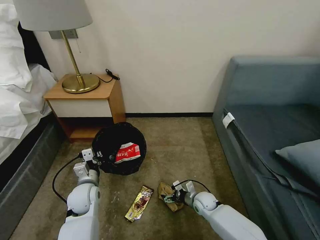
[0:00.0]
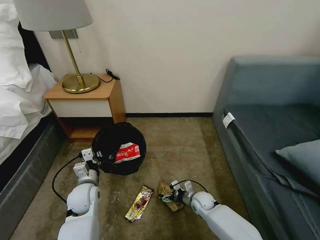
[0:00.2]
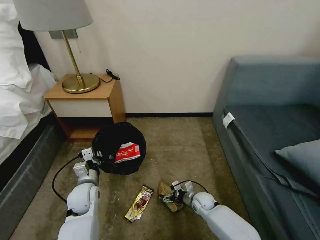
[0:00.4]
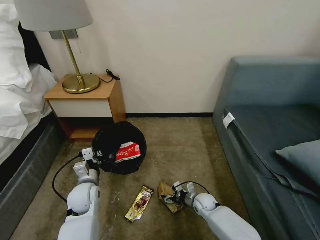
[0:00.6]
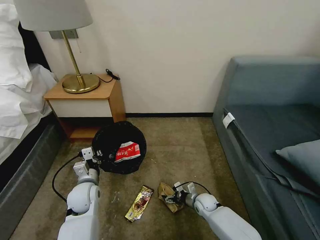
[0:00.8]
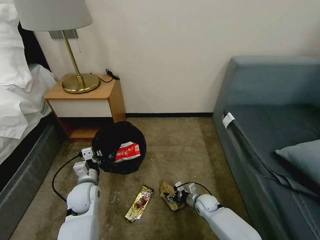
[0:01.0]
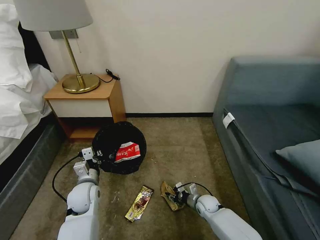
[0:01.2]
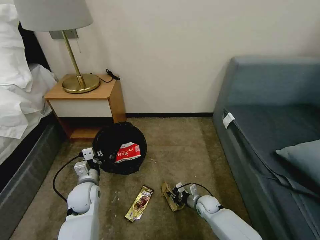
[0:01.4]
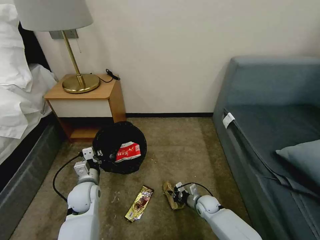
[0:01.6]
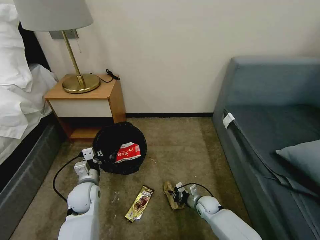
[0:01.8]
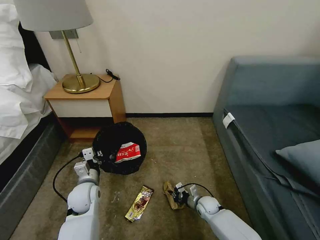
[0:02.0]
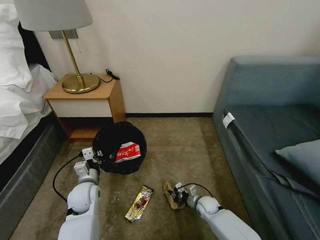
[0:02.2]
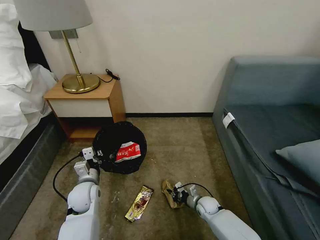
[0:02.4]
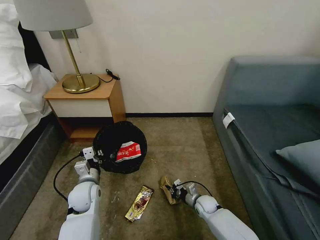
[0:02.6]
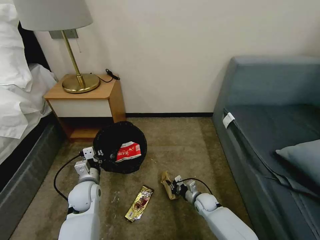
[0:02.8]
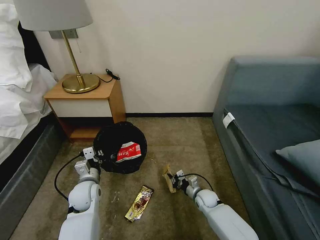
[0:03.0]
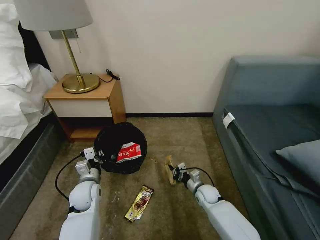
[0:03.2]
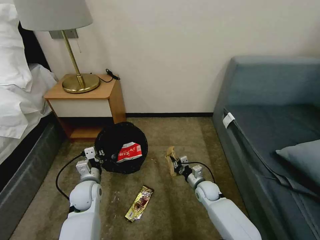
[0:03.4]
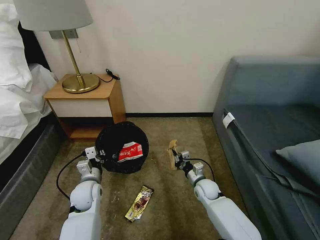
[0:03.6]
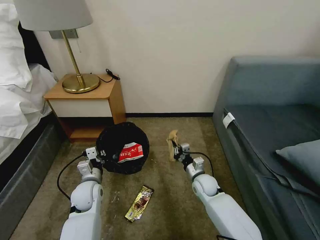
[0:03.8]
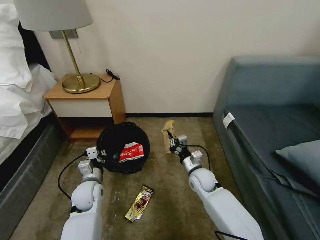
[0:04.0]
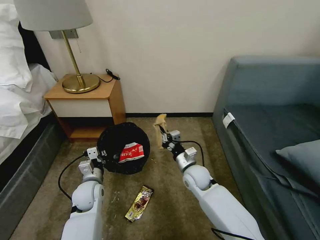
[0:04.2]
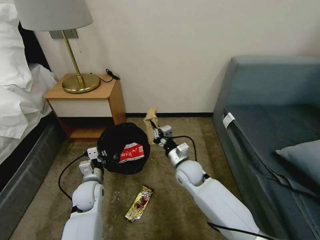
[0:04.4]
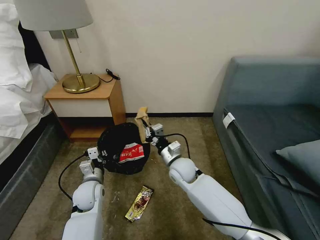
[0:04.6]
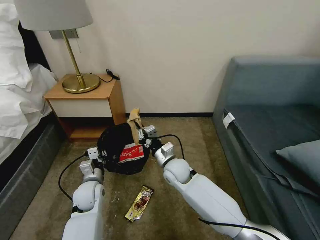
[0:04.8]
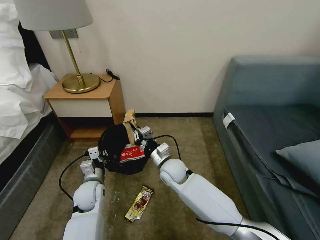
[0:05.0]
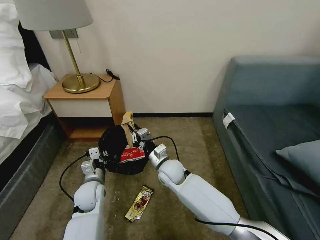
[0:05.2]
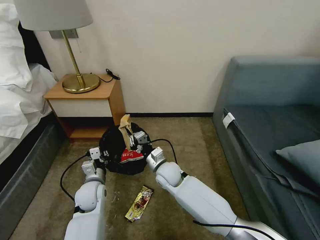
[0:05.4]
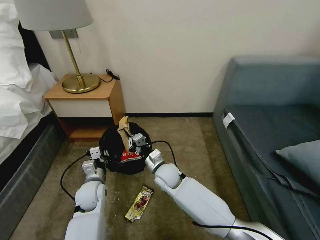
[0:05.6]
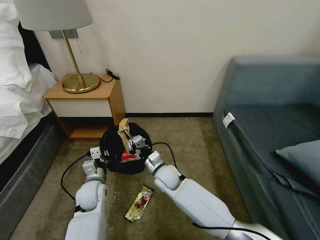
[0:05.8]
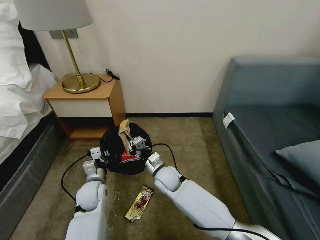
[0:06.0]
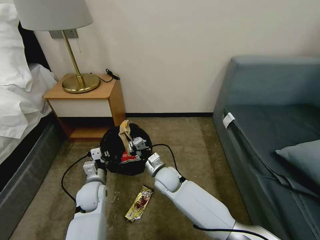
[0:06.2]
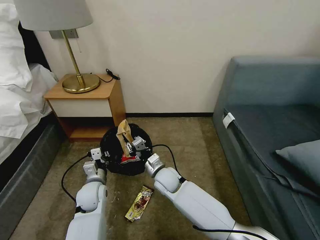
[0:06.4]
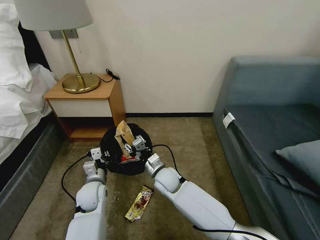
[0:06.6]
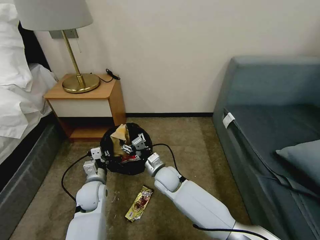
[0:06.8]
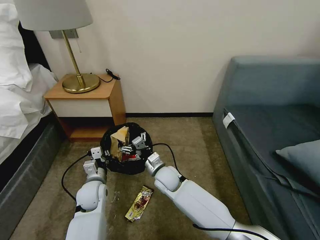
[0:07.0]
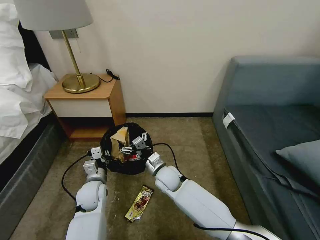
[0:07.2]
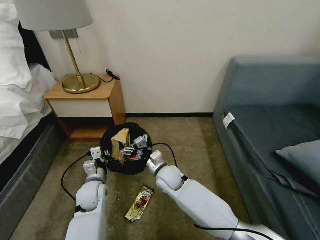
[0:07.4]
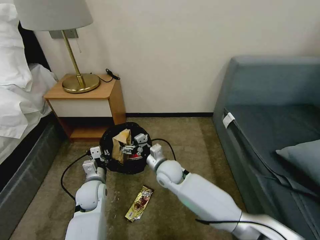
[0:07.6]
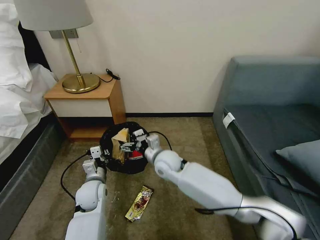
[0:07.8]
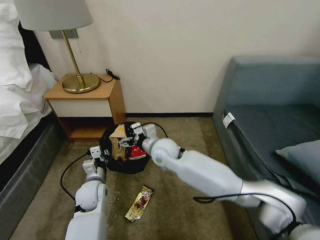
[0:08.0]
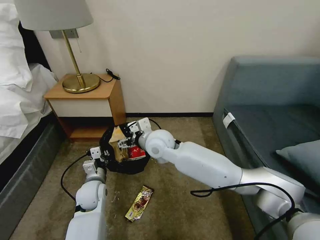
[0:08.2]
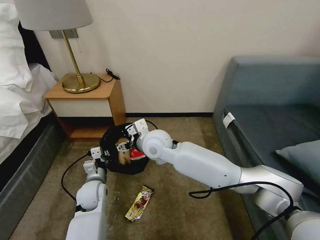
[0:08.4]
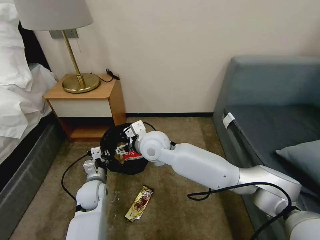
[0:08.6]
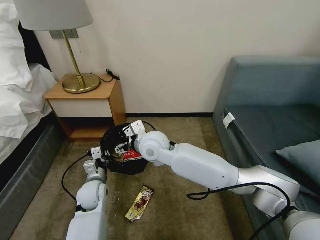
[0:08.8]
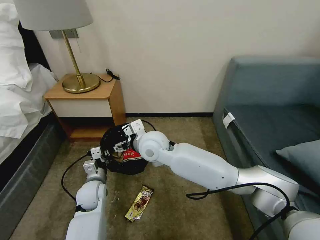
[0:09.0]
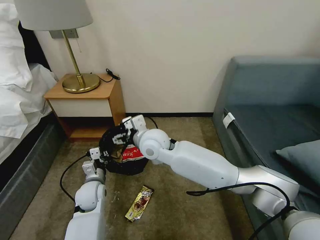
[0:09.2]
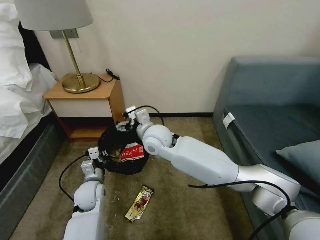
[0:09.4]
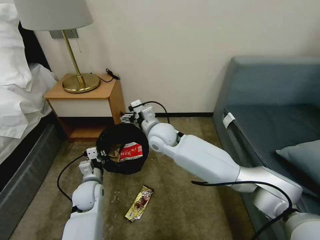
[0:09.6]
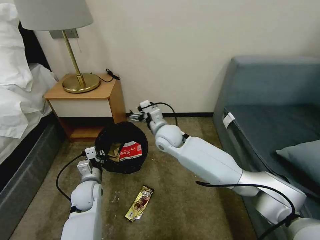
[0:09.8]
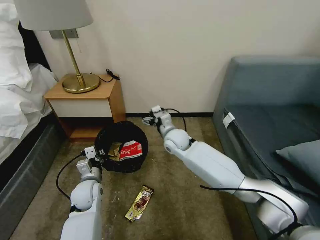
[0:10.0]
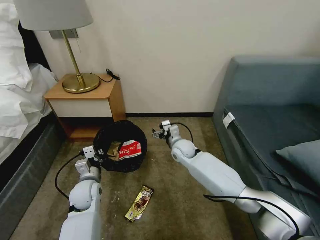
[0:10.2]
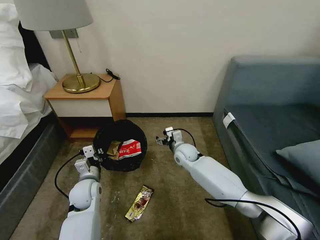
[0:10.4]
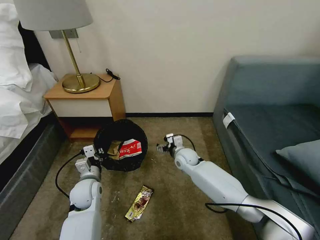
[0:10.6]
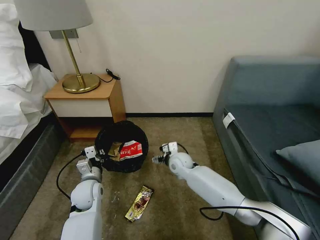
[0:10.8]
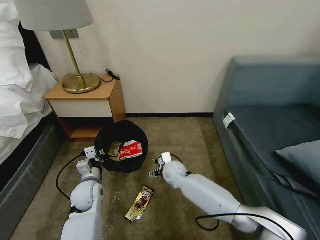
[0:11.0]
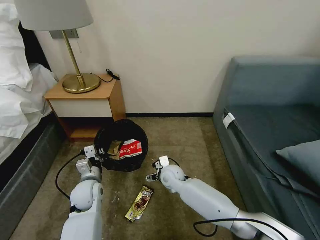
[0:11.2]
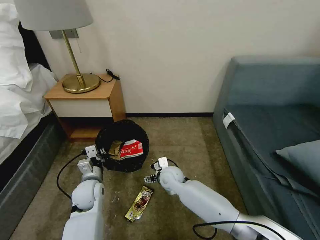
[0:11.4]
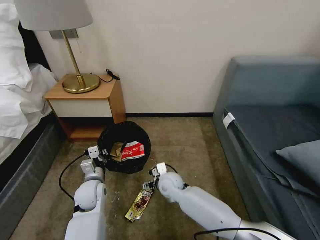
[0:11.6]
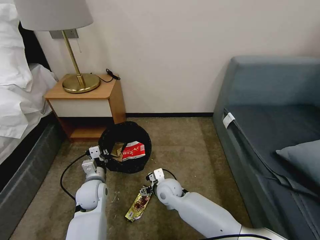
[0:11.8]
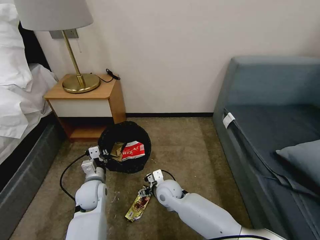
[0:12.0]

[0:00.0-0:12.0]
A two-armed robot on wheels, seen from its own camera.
Task of the whole recording: Pick up the trash bin, then pick up the garbage on the floor and place it into the trash bin.
0:00.0 to 0:01.6: The right gripper closes up.
0:01.6 to 0:03.0: The grippers stay close to where they were, moving slightly.
0:03.0 to 0:04.4: The right gripper moves upward and to the left, some 25 cm.
0:04.4 to 0:06.0: The right gripper goes approximately 10 cm to the left.
0:06.0 to 0:07.6: The right gripper opens.
0:07.6 to 0:09.0: The right gripper moves upward, about 15 cm.
0:09.0 to 0:10.4: The right gripper shifts about 25 cm downward, to the right and forward.
0:10.4 to 0:12.0: The right gripper is displaced backward and to the left by approximately 15 cm.

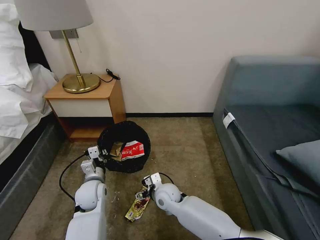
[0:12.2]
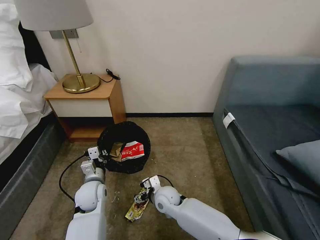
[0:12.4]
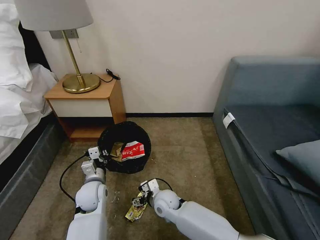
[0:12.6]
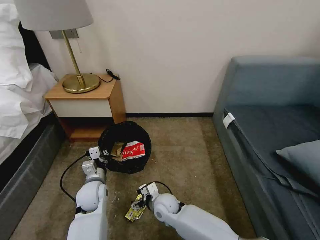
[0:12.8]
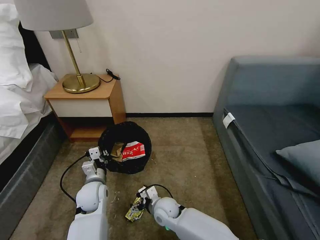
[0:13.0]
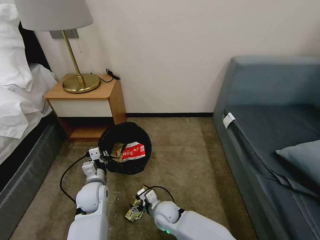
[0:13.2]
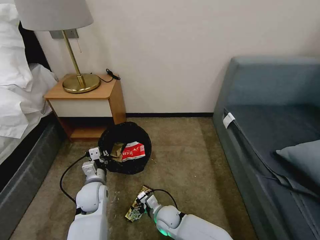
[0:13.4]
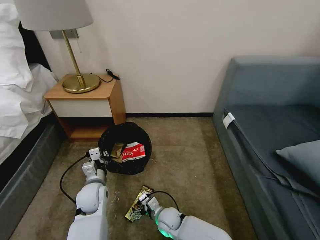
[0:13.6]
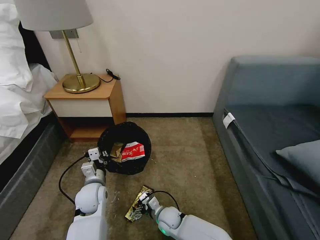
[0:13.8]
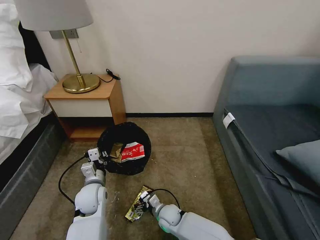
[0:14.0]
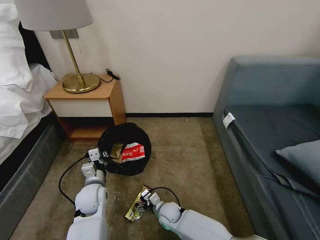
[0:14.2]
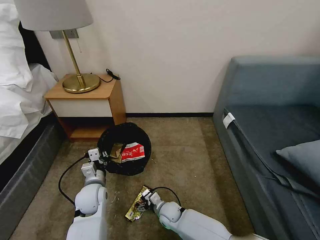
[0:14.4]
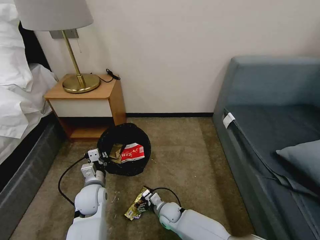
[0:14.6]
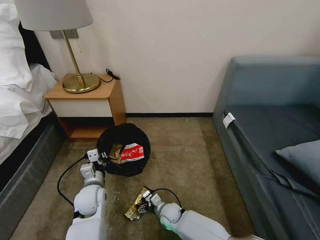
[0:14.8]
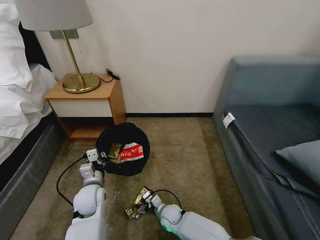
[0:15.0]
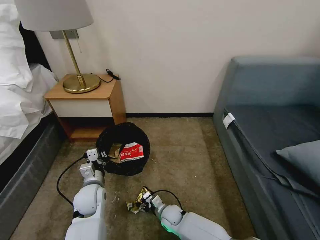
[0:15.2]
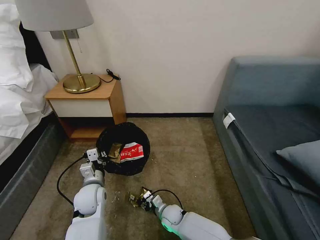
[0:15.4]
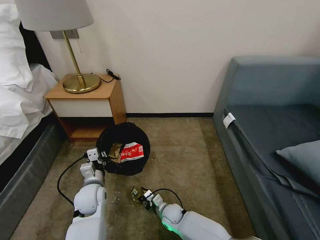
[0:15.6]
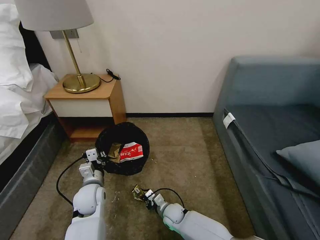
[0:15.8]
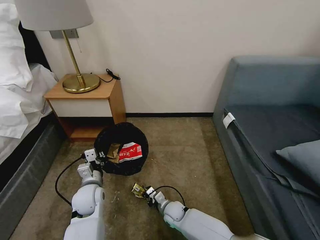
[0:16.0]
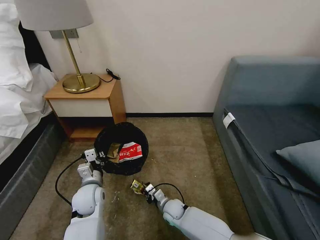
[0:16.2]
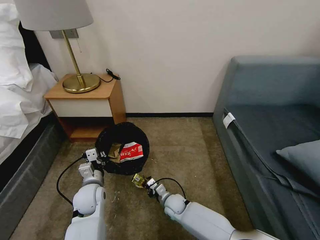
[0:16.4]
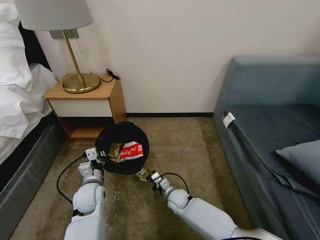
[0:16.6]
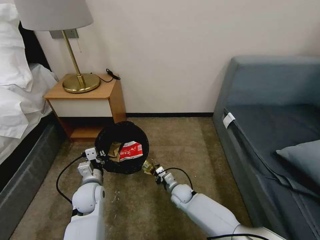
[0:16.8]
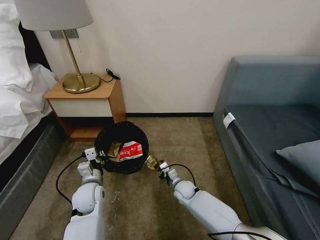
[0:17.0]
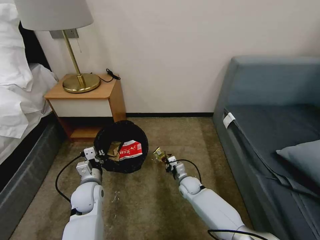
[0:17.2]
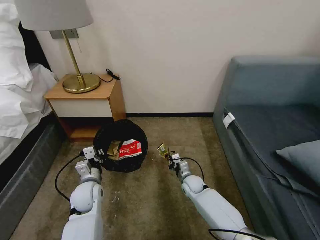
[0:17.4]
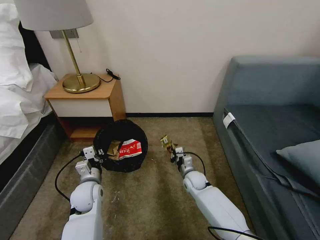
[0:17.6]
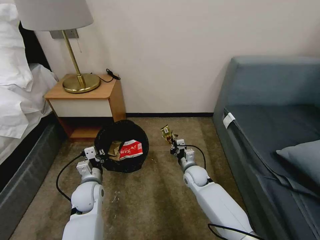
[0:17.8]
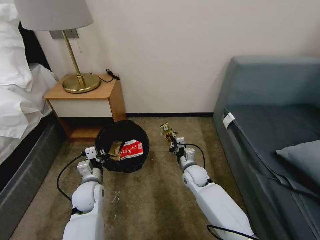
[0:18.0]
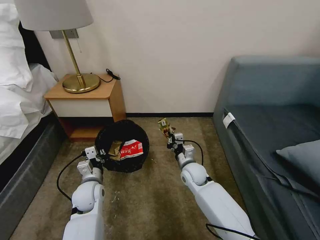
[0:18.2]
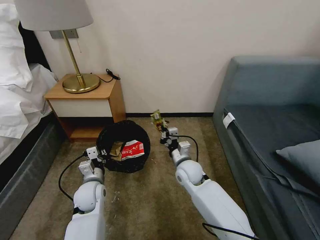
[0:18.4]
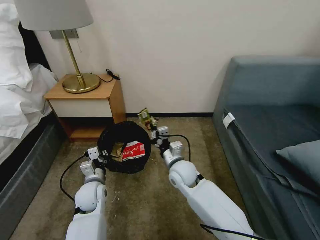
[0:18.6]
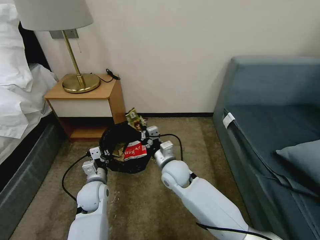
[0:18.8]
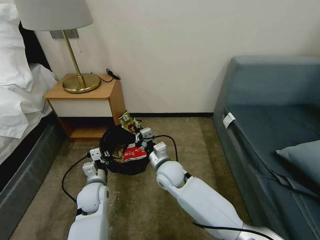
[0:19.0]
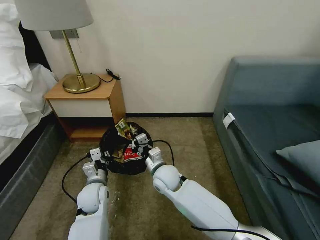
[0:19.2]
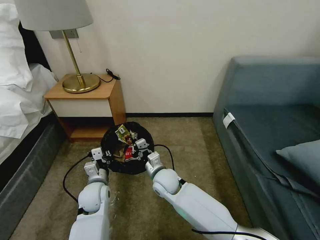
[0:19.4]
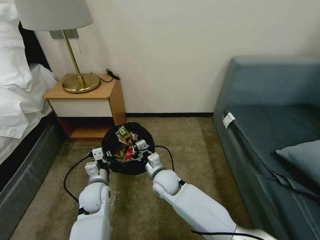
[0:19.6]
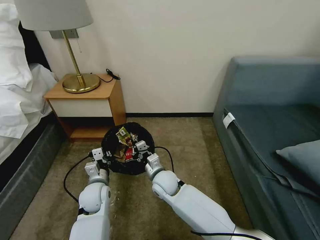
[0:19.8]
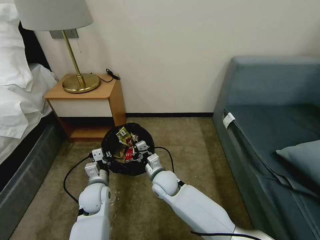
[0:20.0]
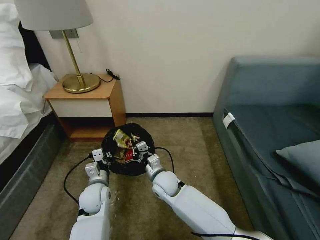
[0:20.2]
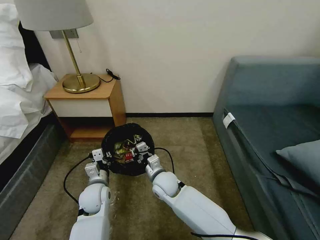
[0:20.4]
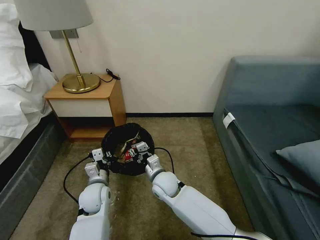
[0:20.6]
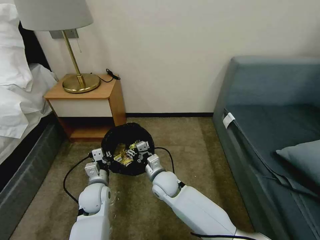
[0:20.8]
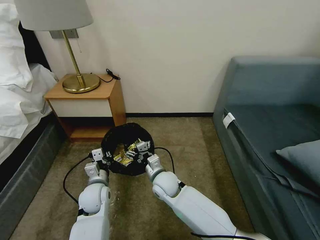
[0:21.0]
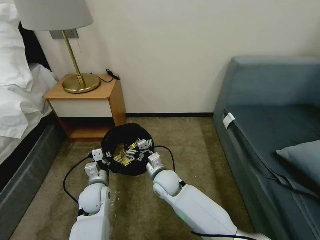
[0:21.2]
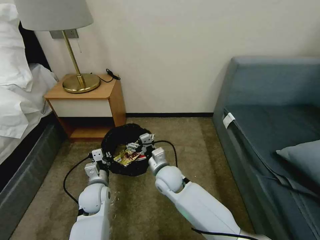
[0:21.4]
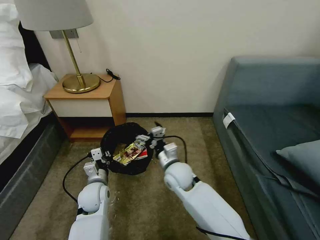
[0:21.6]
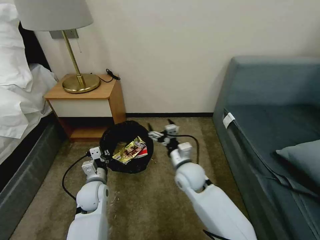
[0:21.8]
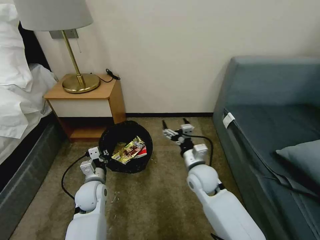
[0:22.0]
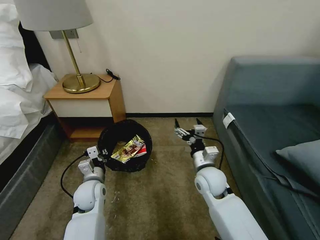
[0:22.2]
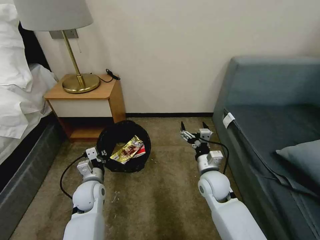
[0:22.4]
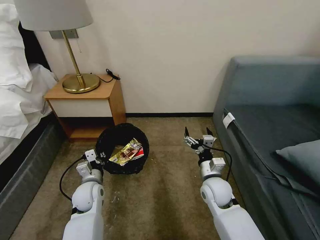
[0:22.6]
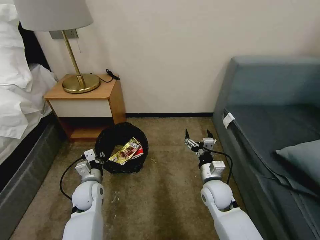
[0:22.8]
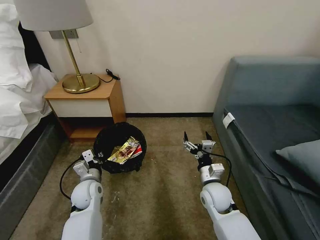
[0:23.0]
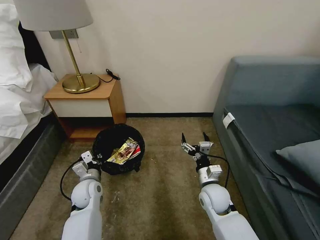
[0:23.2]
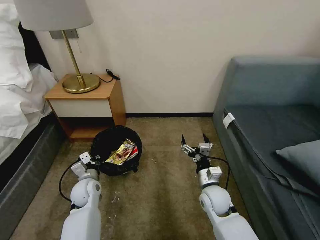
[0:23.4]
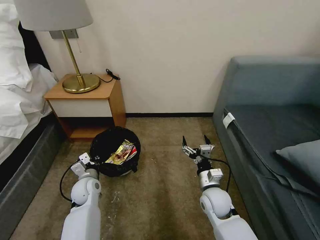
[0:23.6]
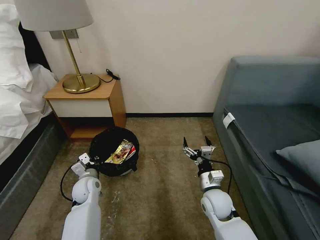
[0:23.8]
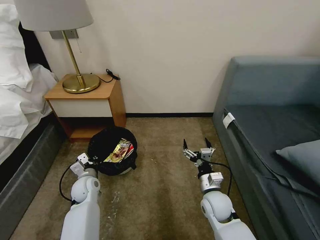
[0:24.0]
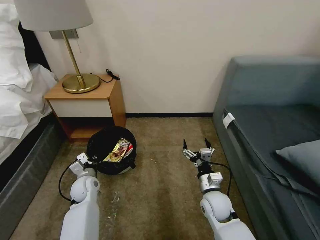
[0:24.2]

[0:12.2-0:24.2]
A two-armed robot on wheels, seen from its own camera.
Task of the whole recording: Pick up the trash bin, then pick up the garbage on the floor and place it into the trash bin.
0:12.2 to 0:13.8: The right gripper goes approximately 15 cm downward and backward.
0:13.8 to 0:15.2: The grippers stay close to where they were, moving slightly.
0:15.2 to 0:16.6: The right gripper moves forward, approximately 5 cm, and closes.
0:16.6 to 0:18.2: The right gripper goes approximately 15 cm upward.
0:18.2 to 0:19.8: The right gripper shifts roughly 10 cm to the left.
0:19.8 to 0:21.2: The right gripper opens.
0:21.2 to 0:22.6: The right gripper heads to the right, covering approximately 15 cm.
0:22.6 to 0:24.2: The left gripper changes place by roughly 5 cm, while the right gripper ends up roughly 5 cm from where it was.
